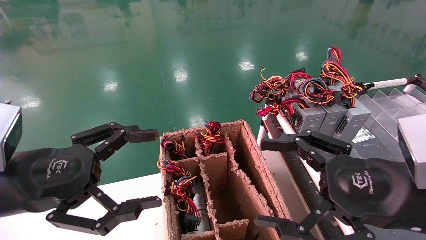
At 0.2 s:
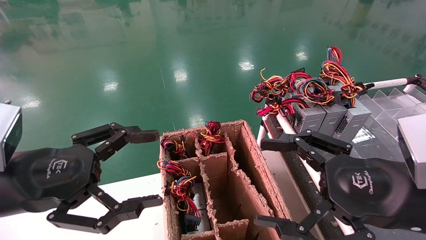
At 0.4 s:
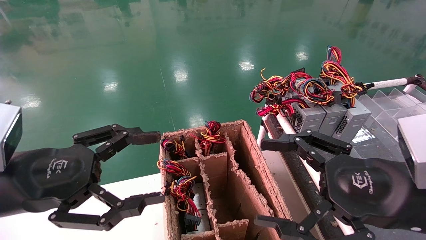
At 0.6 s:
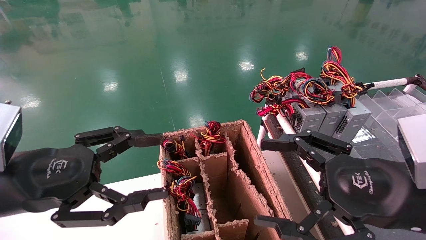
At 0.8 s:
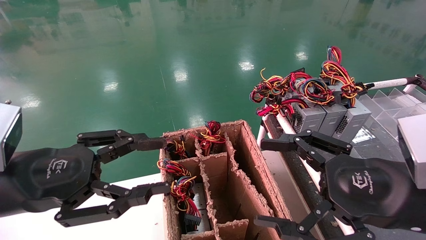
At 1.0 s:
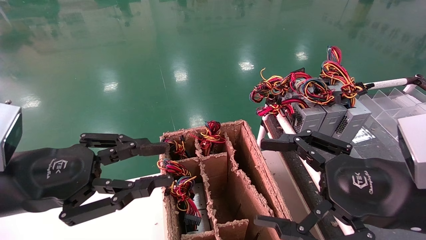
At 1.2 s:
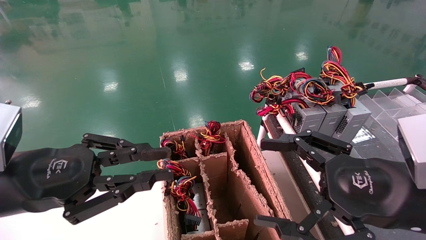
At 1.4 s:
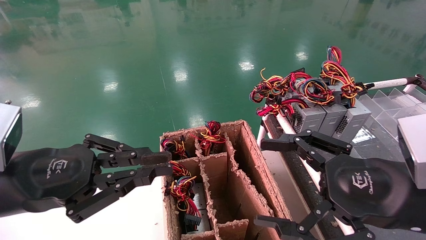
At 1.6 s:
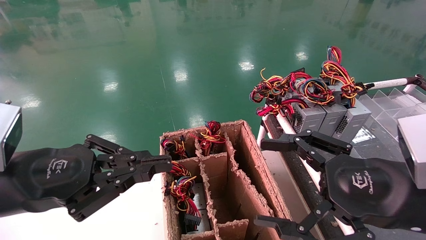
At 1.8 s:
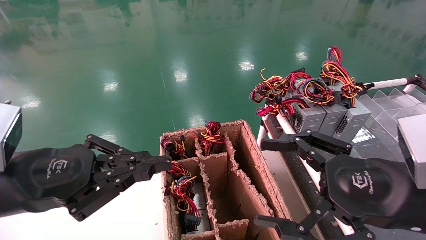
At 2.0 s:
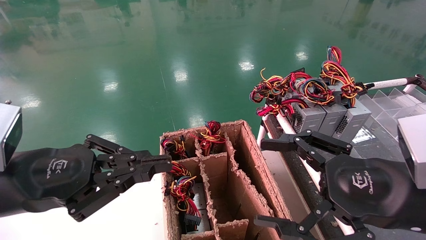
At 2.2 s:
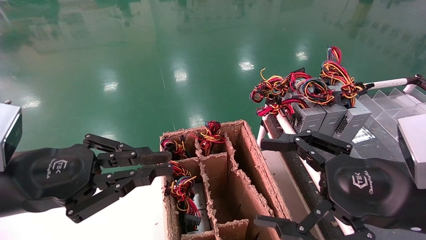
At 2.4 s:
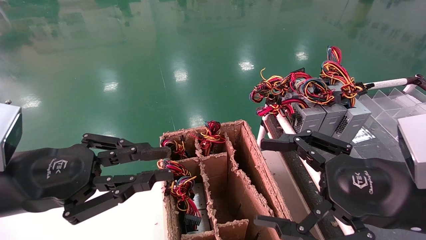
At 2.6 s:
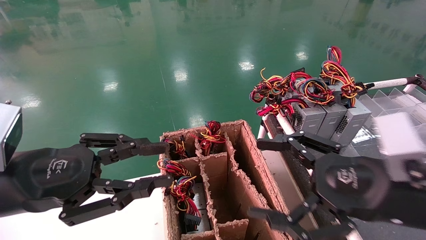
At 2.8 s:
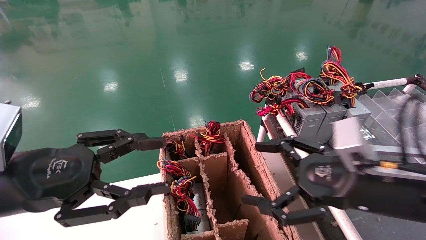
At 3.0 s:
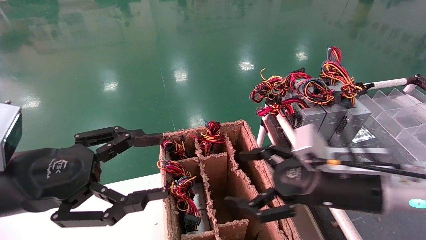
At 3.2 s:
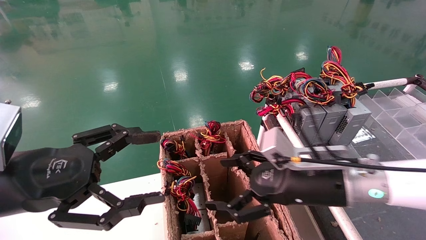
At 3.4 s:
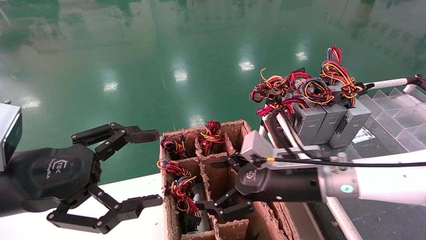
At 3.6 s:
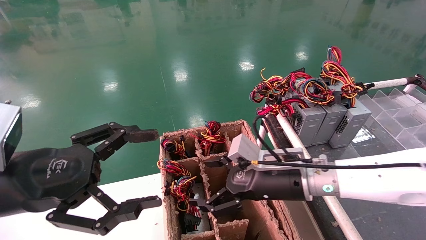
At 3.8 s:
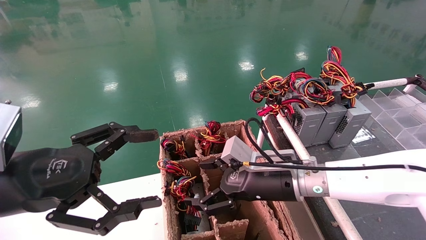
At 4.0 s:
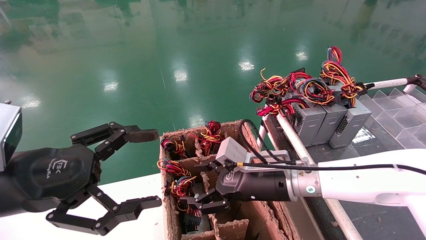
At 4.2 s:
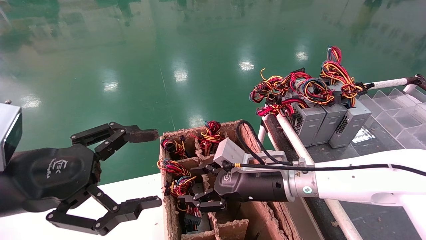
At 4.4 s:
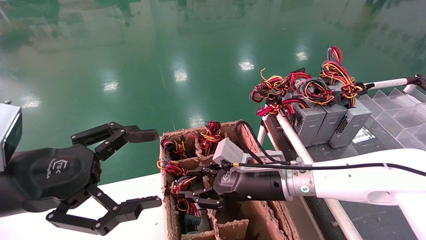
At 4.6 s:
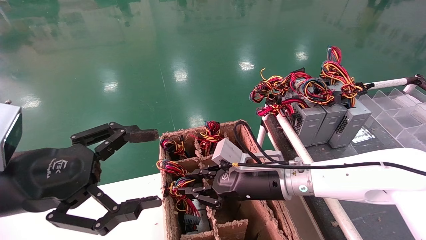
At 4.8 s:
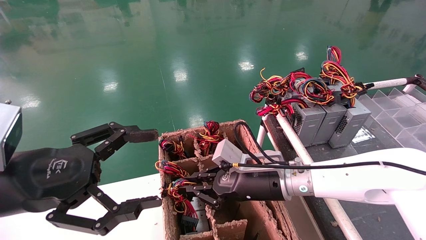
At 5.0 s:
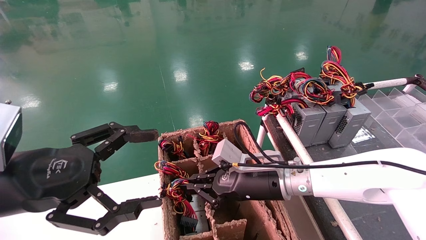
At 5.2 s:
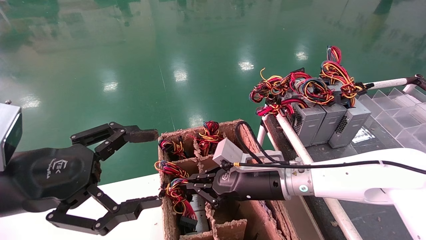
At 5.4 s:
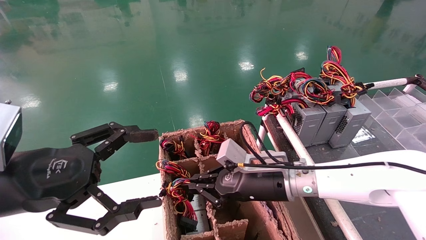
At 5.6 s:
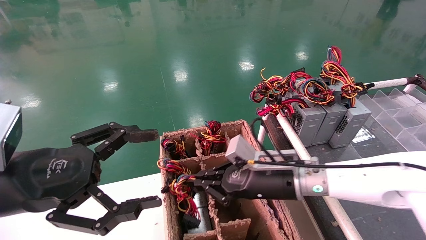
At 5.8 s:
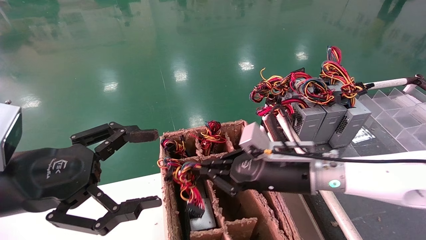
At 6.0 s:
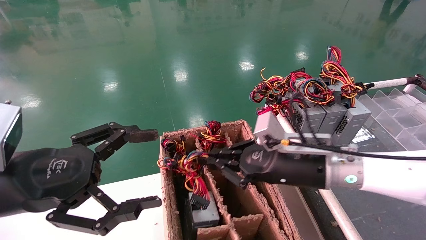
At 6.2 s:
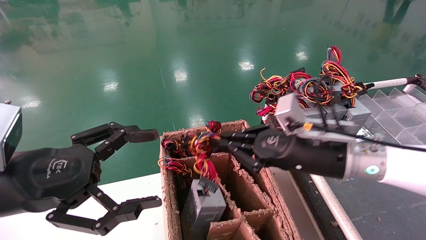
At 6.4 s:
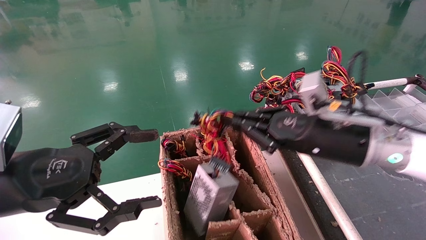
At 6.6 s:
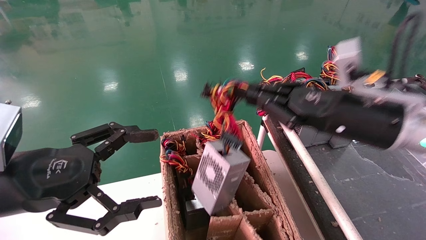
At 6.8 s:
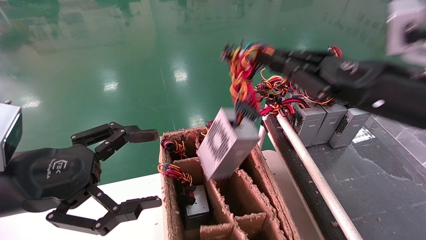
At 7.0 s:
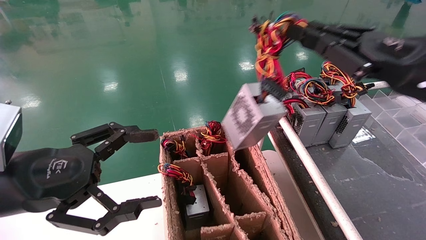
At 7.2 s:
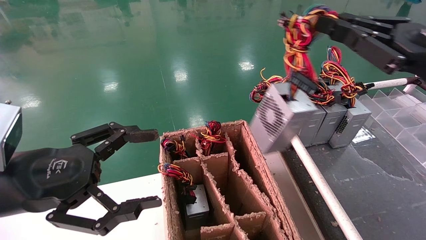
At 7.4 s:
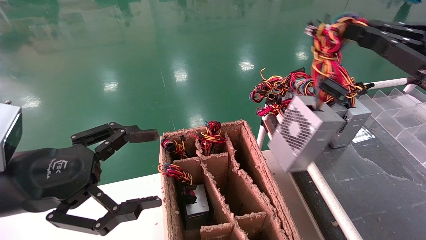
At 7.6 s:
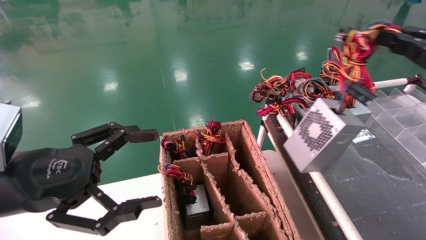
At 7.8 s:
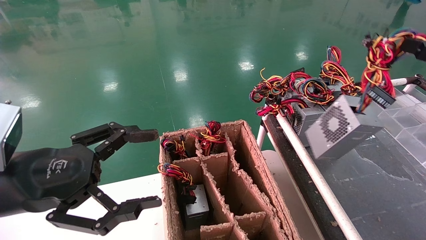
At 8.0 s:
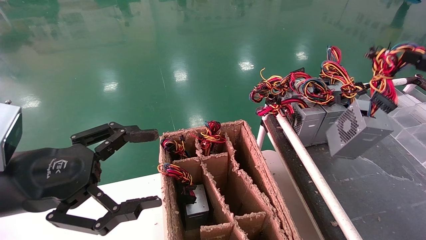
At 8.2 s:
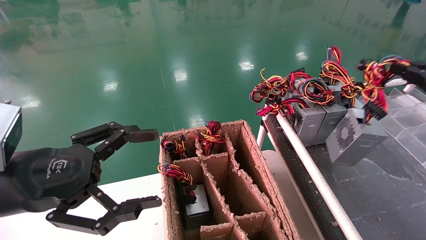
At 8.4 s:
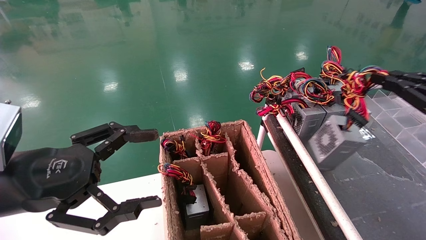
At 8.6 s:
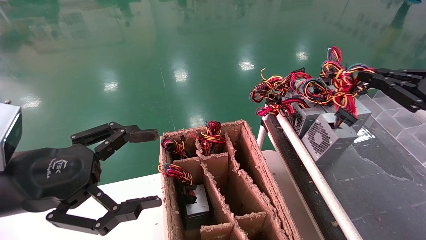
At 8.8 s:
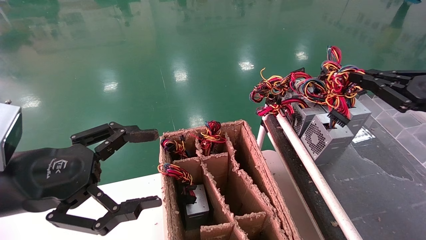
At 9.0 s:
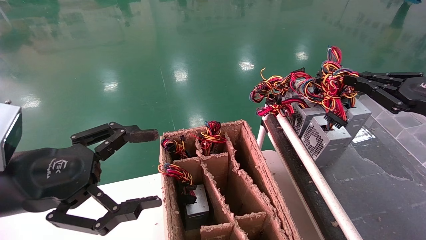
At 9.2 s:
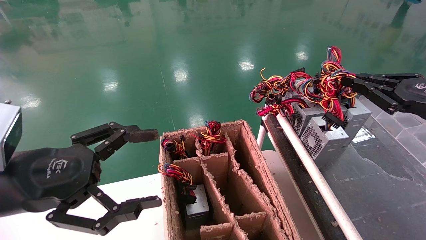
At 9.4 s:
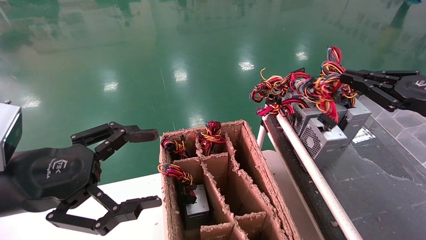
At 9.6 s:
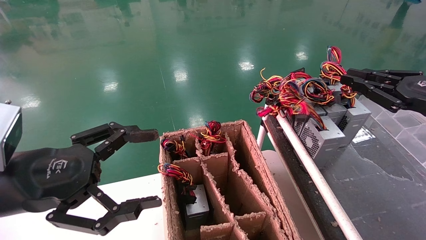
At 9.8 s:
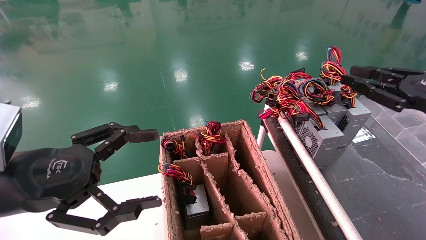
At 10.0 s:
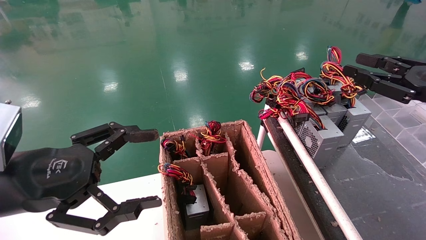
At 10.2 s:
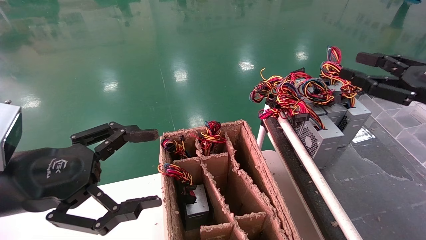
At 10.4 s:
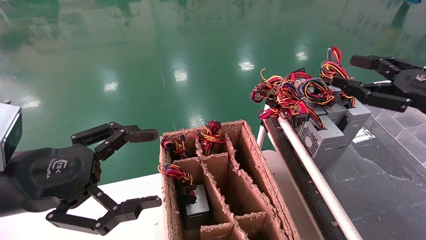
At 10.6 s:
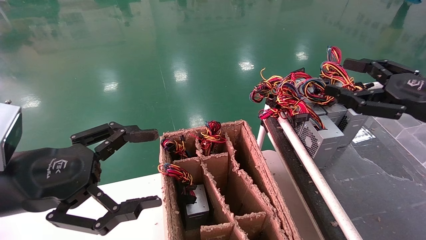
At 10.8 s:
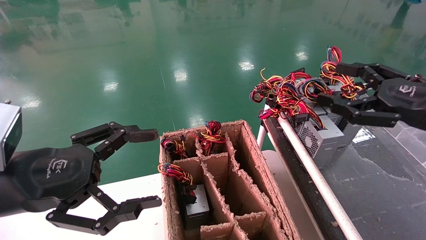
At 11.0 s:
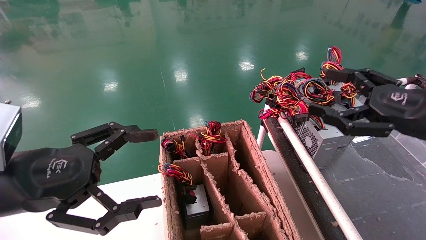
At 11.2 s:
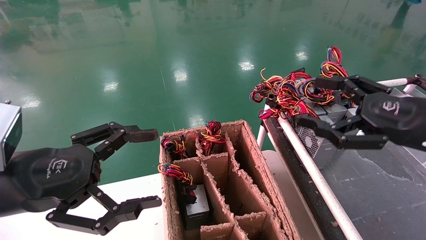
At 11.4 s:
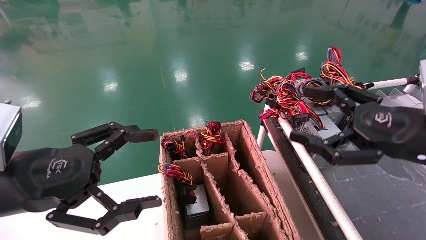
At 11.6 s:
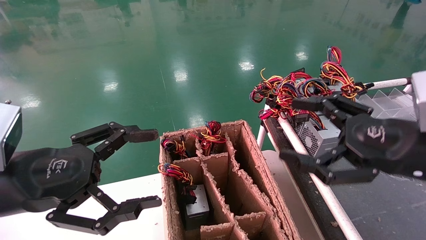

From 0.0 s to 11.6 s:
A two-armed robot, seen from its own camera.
Step, from 1.8 s to 5.0 s: Grab and lift the power supply from the large box.
Step, from 5.2 s to 9.6 s: Place the power supply on the operating table.
From 0.0 s to 1.4 s: The left gripper closes up.
From 1.4 s to 2.8 s: The right gripper heads forward, covering about 5 cm.
From 2.8 s to 4.4 s: The left gripper opens up. Meanwhile the right gripper heads to the left, forward and downward, covering about 20 cm, and closes.
From 4.4 s to 5.8 s: The right gripper shifts by some 5 cm, and closes up.
From 5.8 s to 7.2 s: The right gripper goes some 25 cm to the right, upward and backward.
From 7.2 s to 8.8 s: The right gripper travels to the right and downward by about 10 cm.
From 8.8 s to 10.2 s: The right gripper opens up.
From 10.2 s to 11.6 s: The right gripper is displaced to the left and backward by some 15 cm, and opens its fingers.
